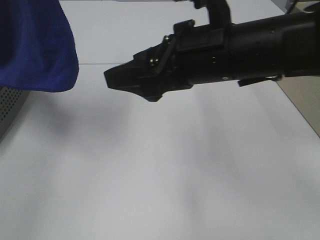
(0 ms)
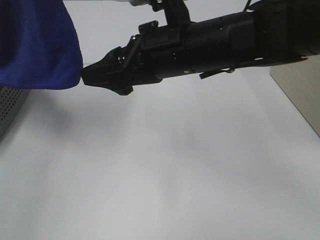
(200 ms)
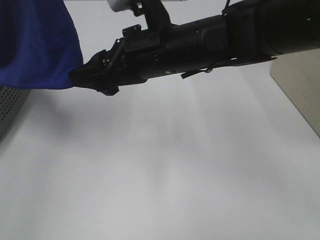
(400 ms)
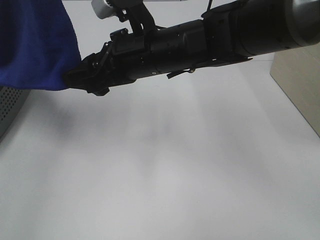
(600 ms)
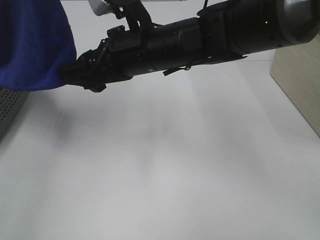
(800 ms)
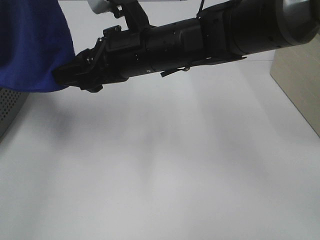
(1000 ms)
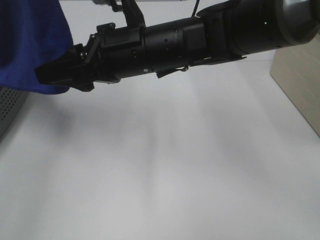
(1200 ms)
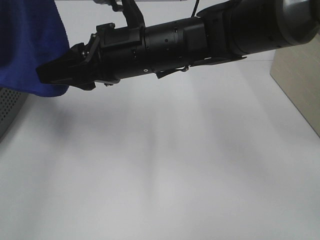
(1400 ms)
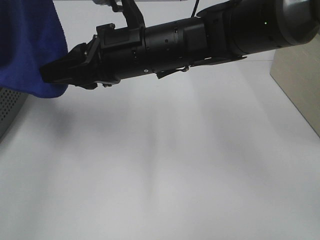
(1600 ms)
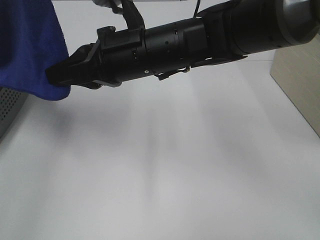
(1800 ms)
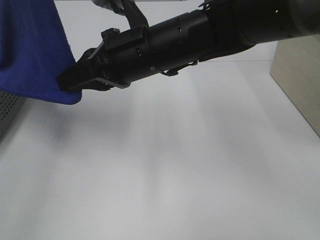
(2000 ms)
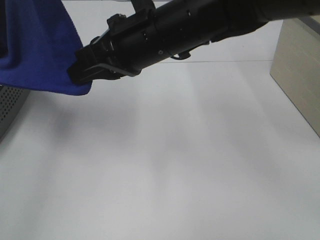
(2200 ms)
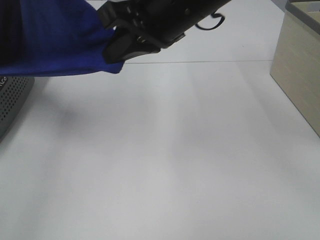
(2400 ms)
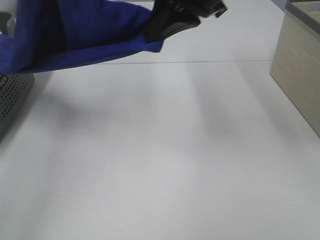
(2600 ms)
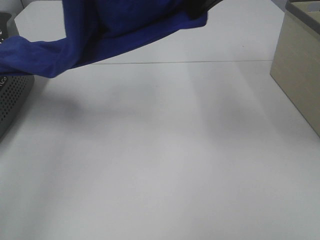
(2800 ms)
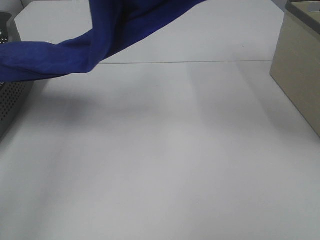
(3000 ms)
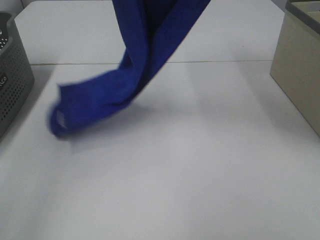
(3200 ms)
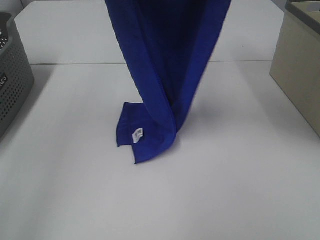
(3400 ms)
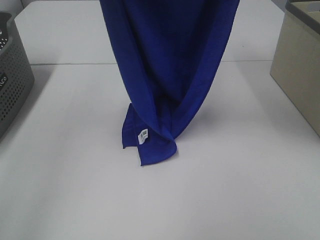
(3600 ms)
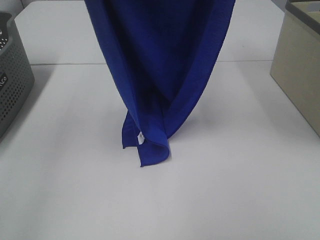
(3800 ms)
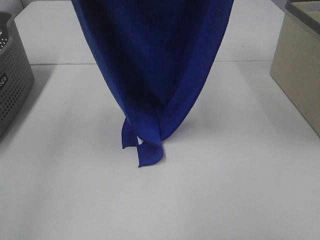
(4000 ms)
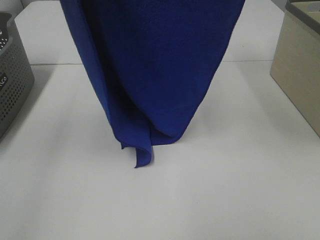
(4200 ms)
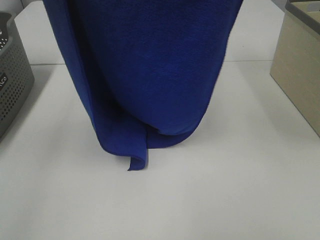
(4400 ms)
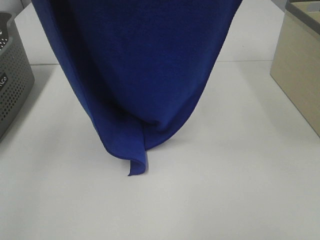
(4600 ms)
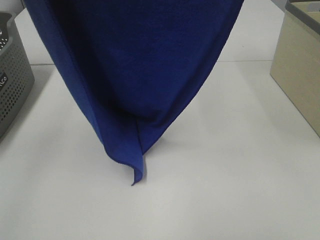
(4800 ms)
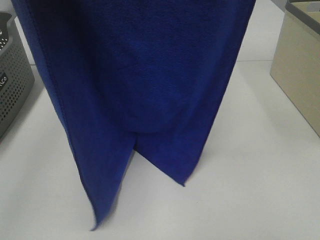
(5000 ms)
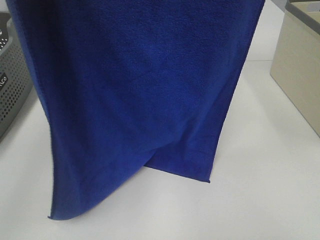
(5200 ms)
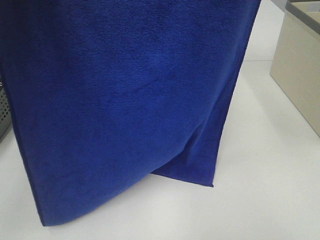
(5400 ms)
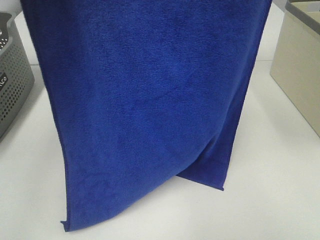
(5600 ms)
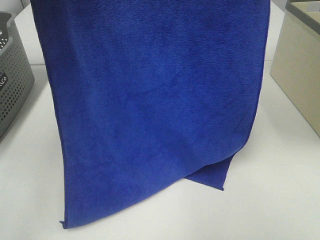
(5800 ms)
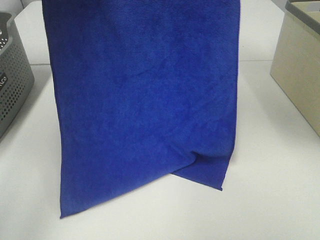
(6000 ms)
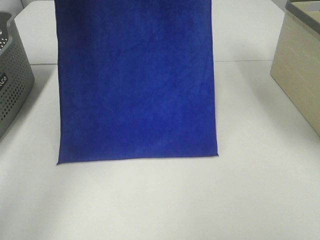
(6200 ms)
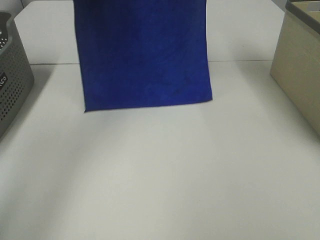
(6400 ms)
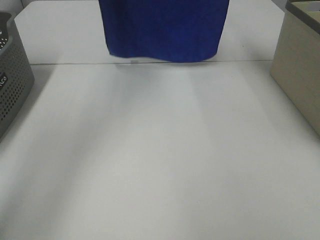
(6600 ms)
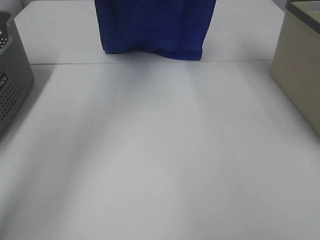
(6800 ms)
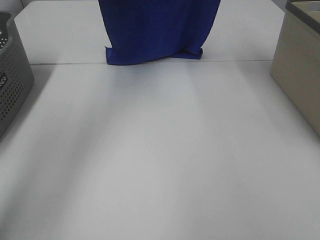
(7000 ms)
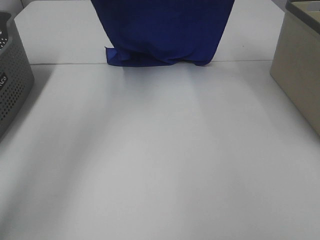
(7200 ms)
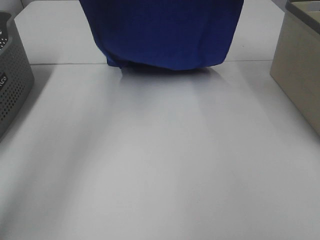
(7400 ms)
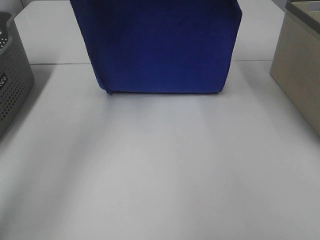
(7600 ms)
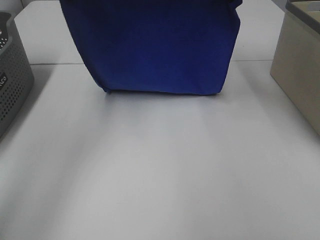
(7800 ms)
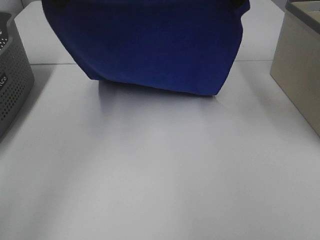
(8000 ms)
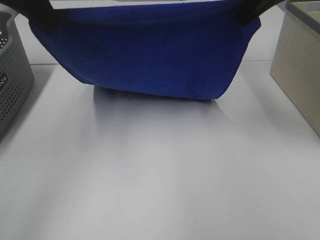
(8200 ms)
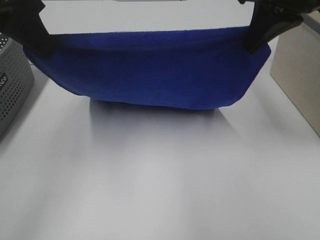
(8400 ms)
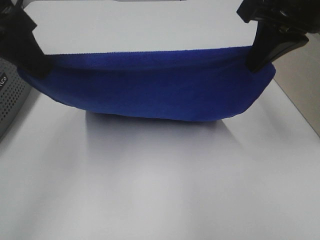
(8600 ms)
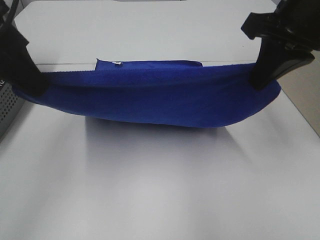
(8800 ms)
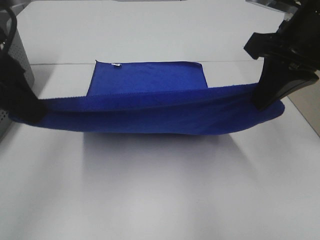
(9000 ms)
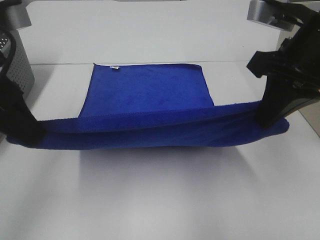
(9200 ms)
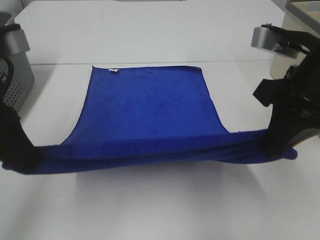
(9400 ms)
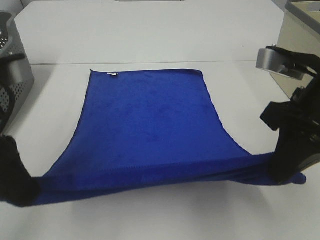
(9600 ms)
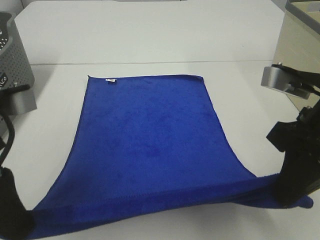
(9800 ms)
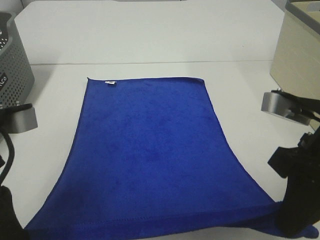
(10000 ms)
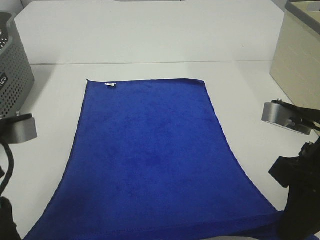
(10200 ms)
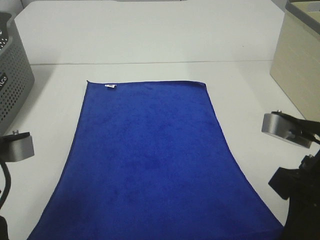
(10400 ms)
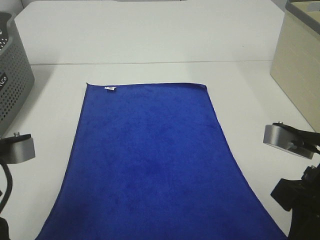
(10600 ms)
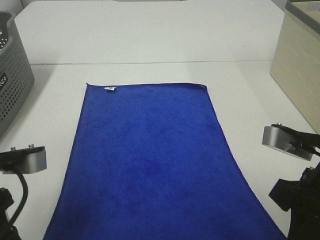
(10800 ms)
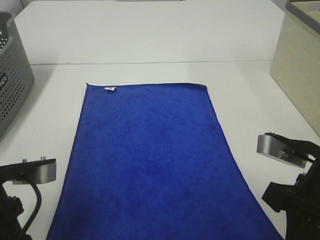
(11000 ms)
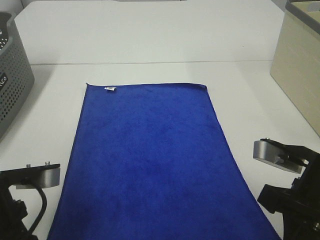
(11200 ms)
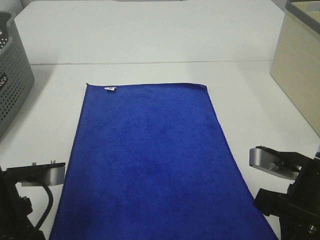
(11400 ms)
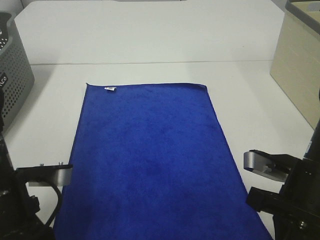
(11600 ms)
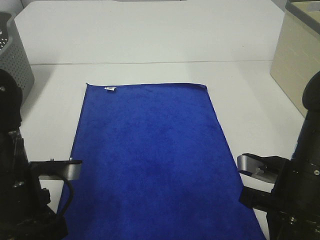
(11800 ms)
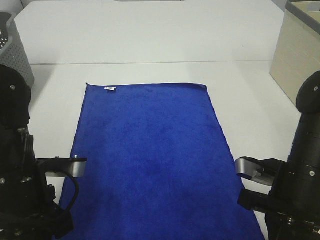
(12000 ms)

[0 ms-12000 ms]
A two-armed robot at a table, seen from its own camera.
Task of the whole recording: Remove the towel and place it.
Step, 0 ms to 2000 ms: Right hand: grab a corner of the blue towel and straighten it.
Step, 2200 ms to 9000 ms: Left hand: spread the blue towel flat on the table.
Step, 2200 ms to 9000 ms: Right hand: spread the blue towel flat on the table.
0 ms to 1600 ms: The right gripper goes approximately 10 cm to the left, and closes its fingers.
1600 ms to 3000 ms: The left gripper changes place by some 5 cm. The right gripper travels upward and to the right by approximately 25 cm, and closes.
3000 ms to 4400 ms: The left gripper is displaced backward by roughly 10 cm; the right gripper heads backward and upward, covering roughly 10 cm.
4400 ms to 6000 ms: The grippers both shift forward by roughly 10 cm.
6000 ms to 7600 ms: Both grippers travel together downward and forward, about 15 cm.
7600 ms to 9000 ms: The left gripper is displaced backward and downward by about 20 cm. Meanwhile the right gripper moves backward, about 20 cm.
9000 ms to 10400 ms: The two grippers go some 15 cm backward and downward.
10400 ms to 12000 ms: The right gripper travels downward by approximately 10 cm. Meanwhile the left gripper travels downward and forward by roughly 10 cm.

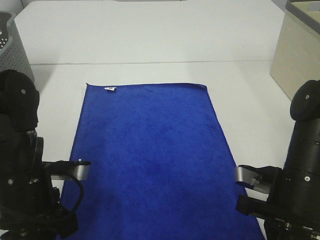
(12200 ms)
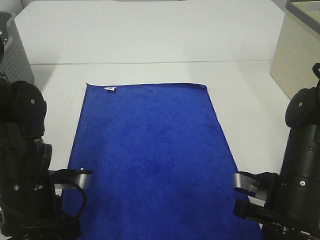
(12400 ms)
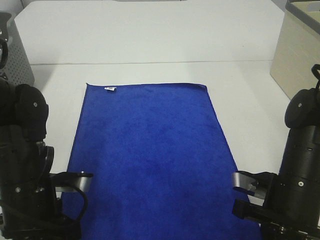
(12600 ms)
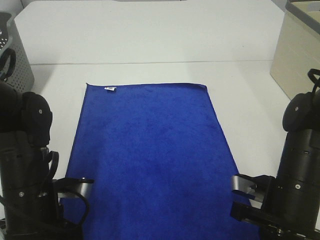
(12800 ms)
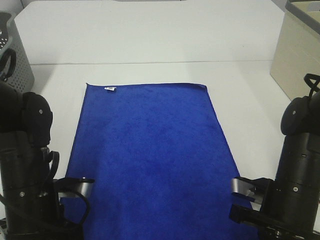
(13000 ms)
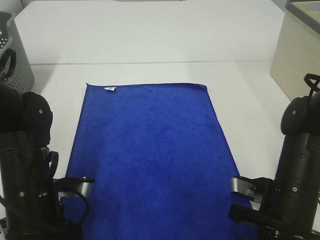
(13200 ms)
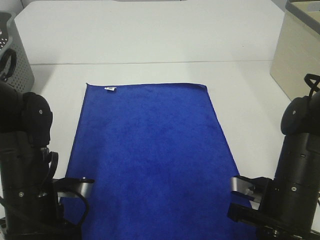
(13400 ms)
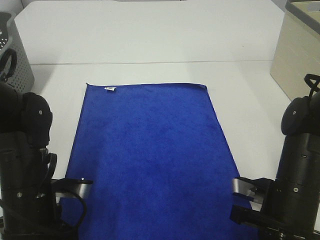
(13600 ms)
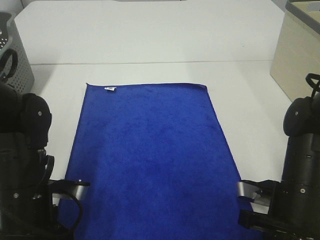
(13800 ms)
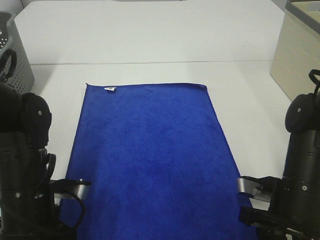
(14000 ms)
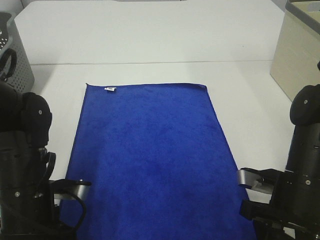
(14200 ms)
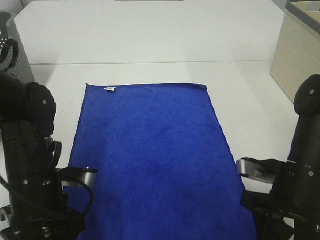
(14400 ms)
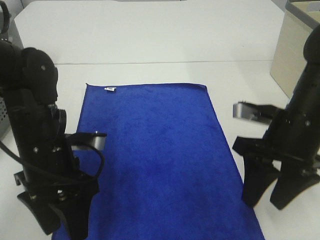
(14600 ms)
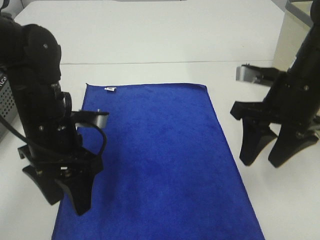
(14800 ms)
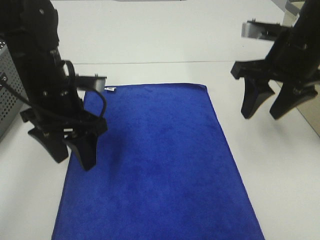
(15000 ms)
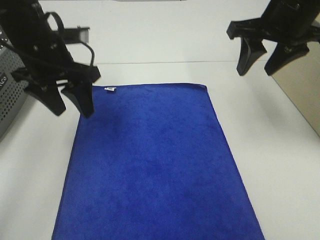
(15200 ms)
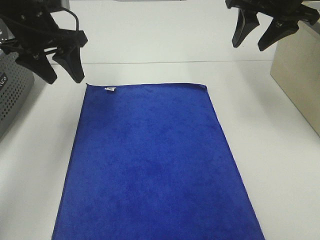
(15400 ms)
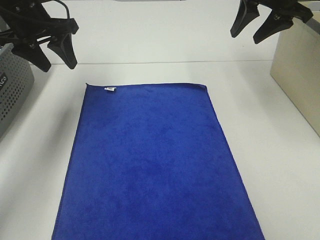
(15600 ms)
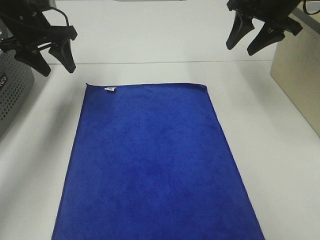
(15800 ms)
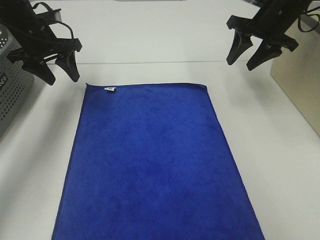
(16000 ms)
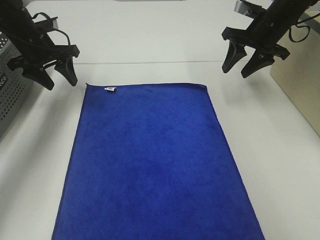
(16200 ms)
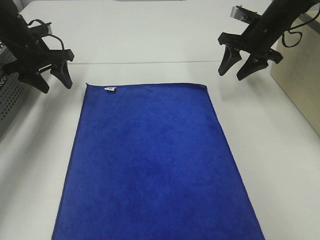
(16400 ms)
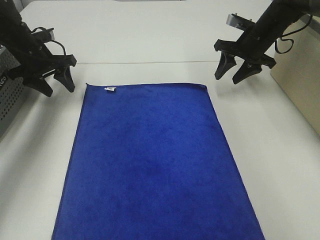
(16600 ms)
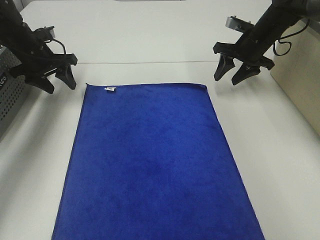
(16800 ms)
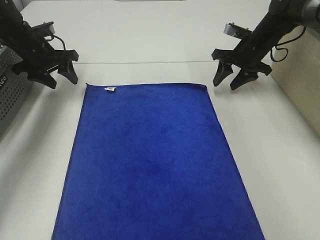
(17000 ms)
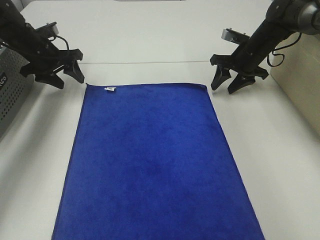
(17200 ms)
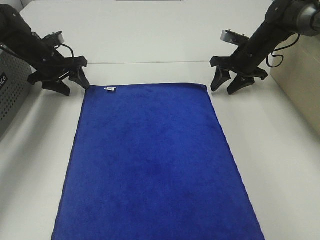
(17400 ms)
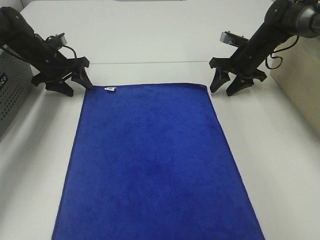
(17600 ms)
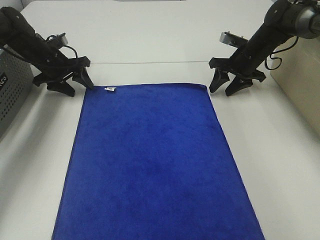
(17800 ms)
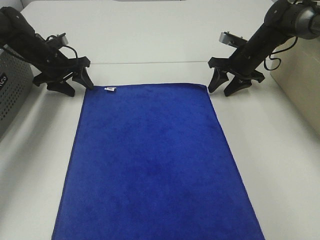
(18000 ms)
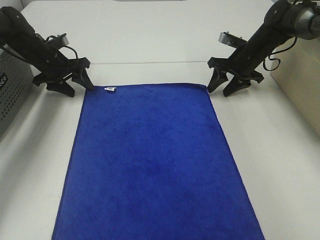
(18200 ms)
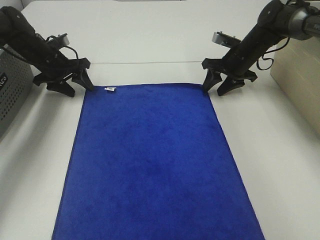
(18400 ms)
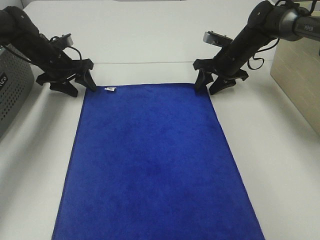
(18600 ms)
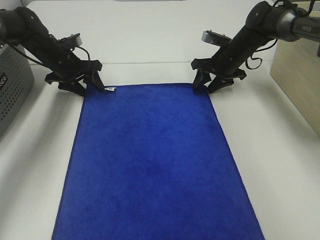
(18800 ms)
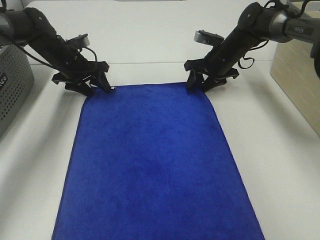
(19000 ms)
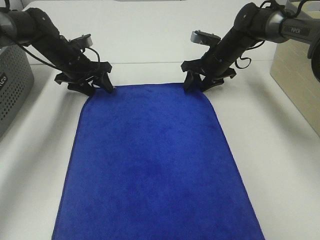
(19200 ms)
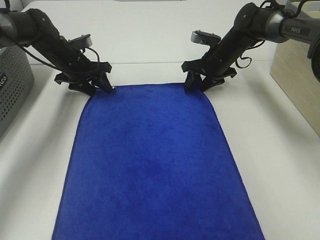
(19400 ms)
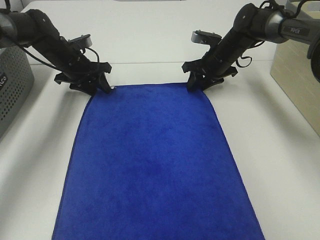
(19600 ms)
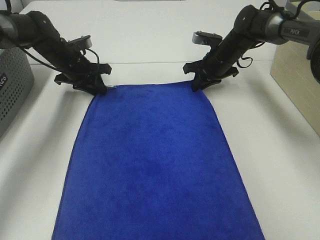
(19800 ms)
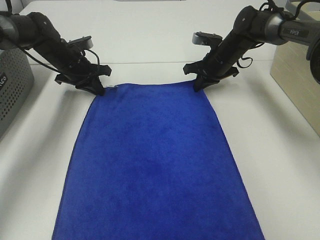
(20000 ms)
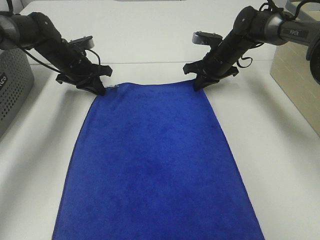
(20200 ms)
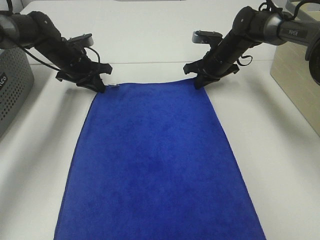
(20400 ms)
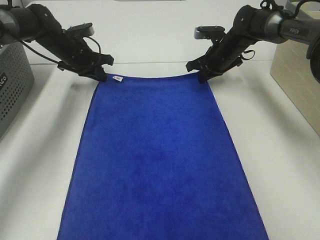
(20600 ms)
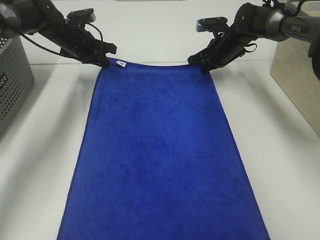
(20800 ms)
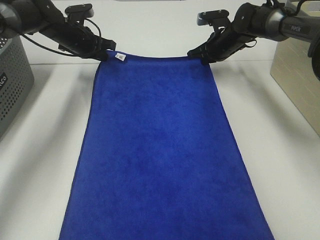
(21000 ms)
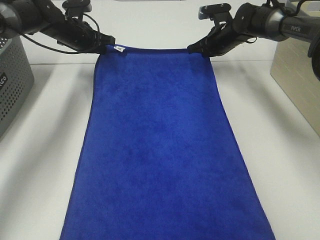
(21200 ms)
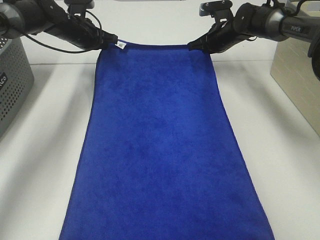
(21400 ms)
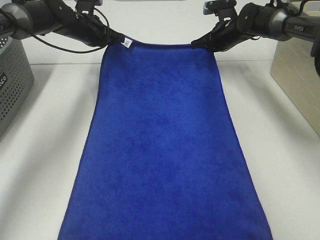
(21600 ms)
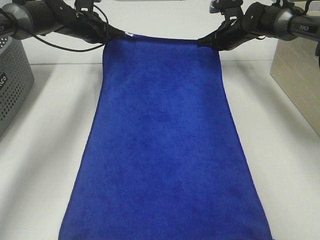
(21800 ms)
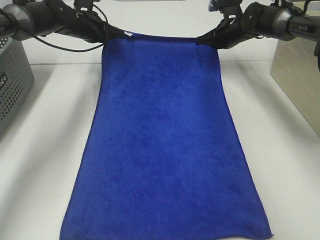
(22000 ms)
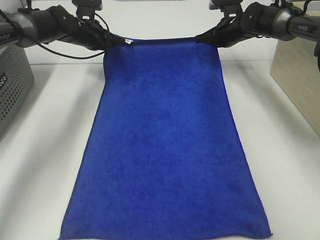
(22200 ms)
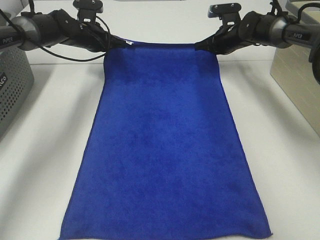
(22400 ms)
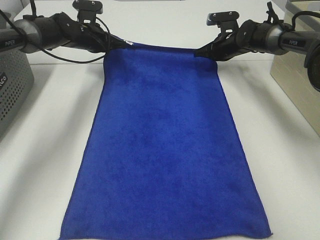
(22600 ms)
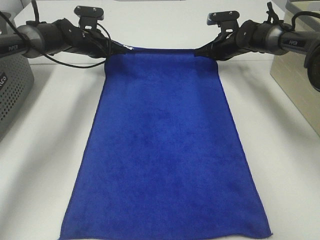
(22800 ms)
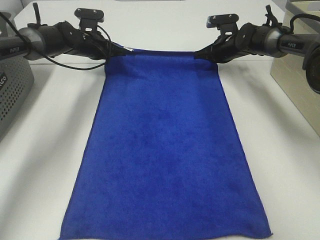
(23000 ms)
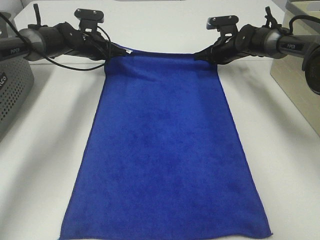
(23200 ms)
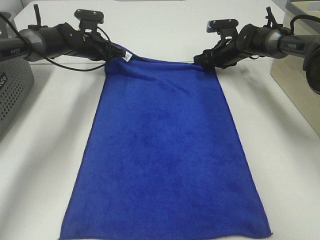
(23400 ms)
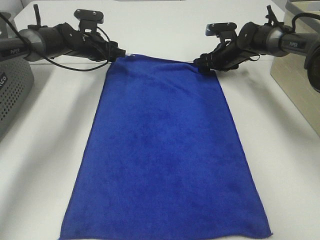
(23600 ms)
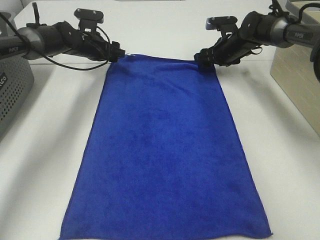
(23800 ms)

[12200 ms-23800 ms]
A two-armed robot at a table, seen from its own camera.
Task of the whole recording: Remove the towel and place it.
Step, 12200 ms to 16800 ms: Left hand:adjust the blue towel.
Step, 12200 ms to 16800 ms: Right hand:adjust the blue towel.
12200 ms to 13600 ms: There are only small adjustments of the grippers.
13600 ms to 15000 ms: The left gripper goes roughly 15 cm forward and upward, and opens its fingers, while the right gripper moves upward and forward, about 20 cm, and opens up.
15000 ms to 16600 ms: The right gripper is displaced forward and downward by some 20 cm. Meanwhile the left gripper goes approximately 25 cm forward and to the left.
16600 ms to 18000 ms: The left gripper shifts by roughly 5 cm; the right gripper moves downward, roughly 5 cm.
18000 ms to 19400 ms: The right gripper is displaced to the left by roughly 5 cm, while the left gripper shifts roughly 5 cm to the right.
19400 ms to 21000 ms: The right gripper closes up; the left gripper changes place by approximately 5 cm, and closes.
21000 ms to 22400 ms: The grippers stay close to where they were, moving slightly.
22400 ms to 23800 ms: The right gripper opens its fingers; the left gripper opens its fingers.
